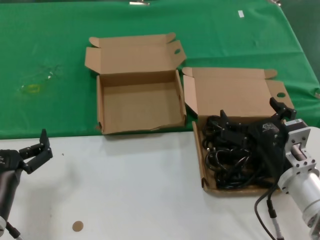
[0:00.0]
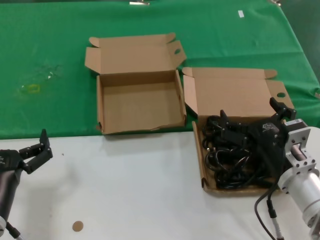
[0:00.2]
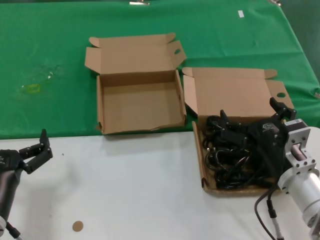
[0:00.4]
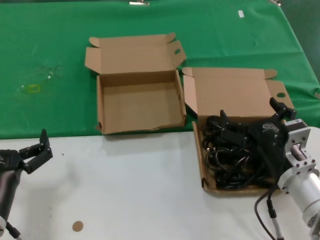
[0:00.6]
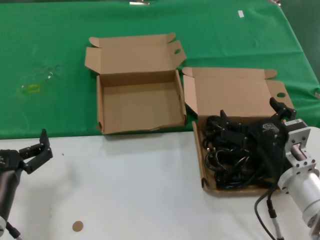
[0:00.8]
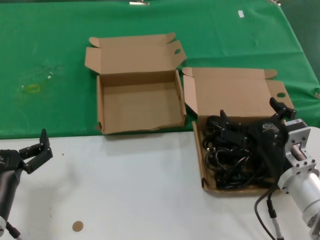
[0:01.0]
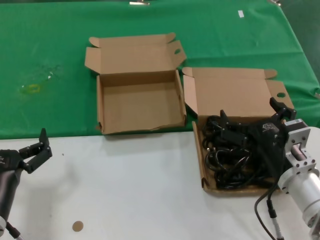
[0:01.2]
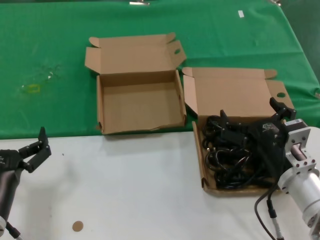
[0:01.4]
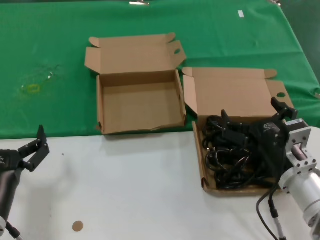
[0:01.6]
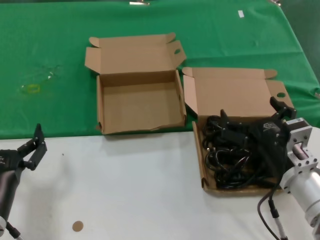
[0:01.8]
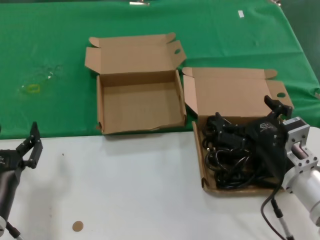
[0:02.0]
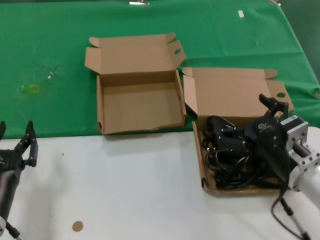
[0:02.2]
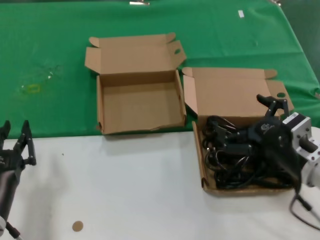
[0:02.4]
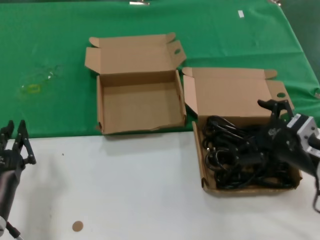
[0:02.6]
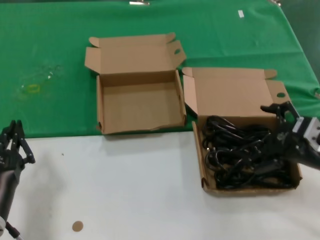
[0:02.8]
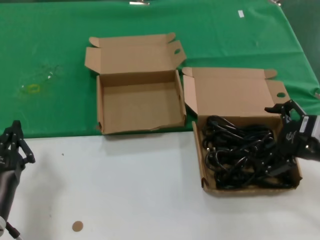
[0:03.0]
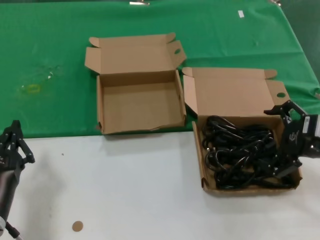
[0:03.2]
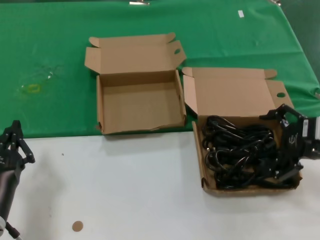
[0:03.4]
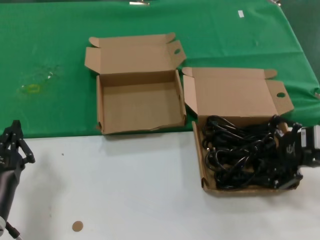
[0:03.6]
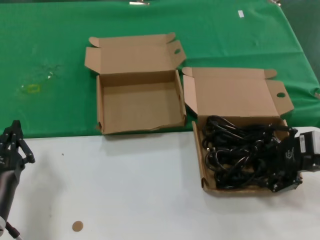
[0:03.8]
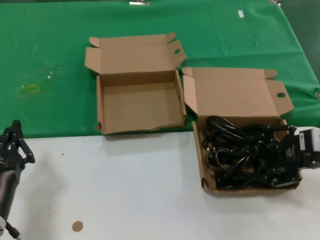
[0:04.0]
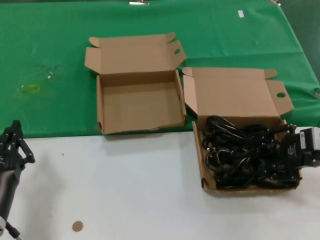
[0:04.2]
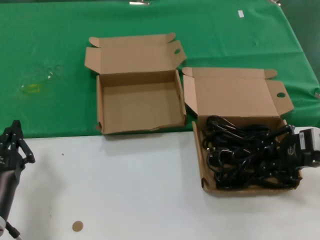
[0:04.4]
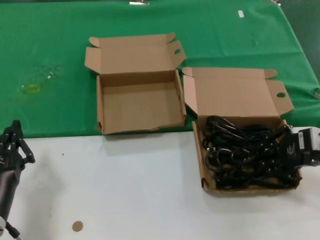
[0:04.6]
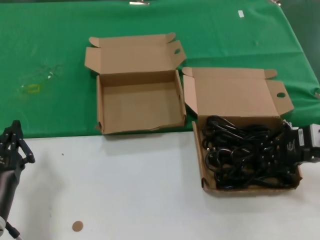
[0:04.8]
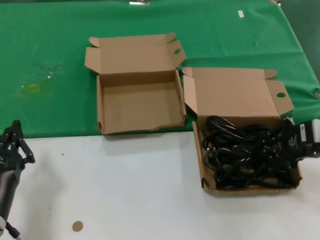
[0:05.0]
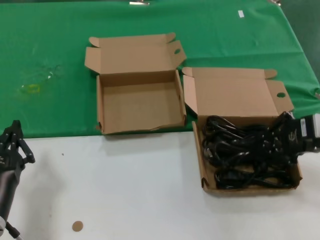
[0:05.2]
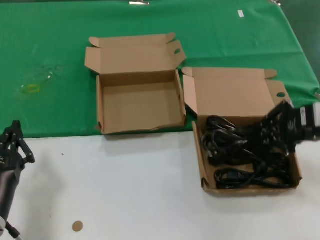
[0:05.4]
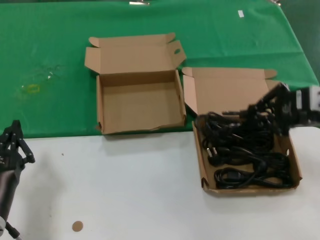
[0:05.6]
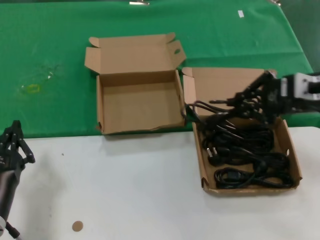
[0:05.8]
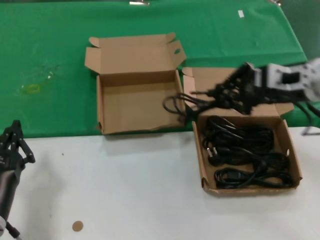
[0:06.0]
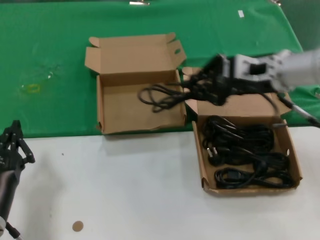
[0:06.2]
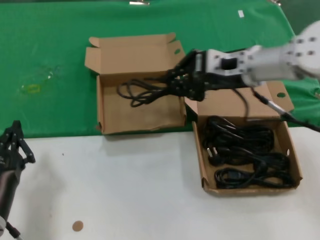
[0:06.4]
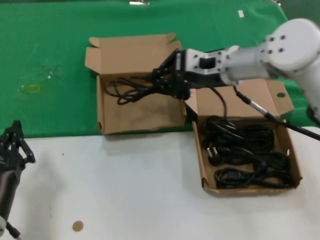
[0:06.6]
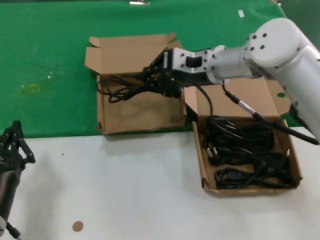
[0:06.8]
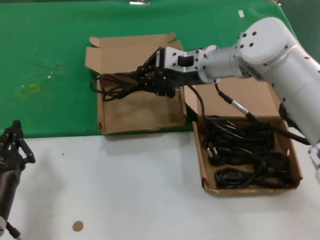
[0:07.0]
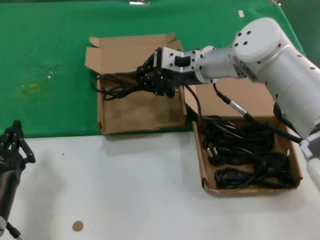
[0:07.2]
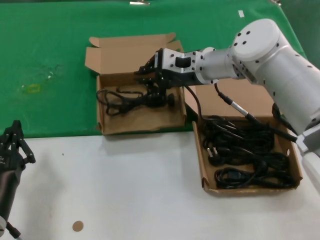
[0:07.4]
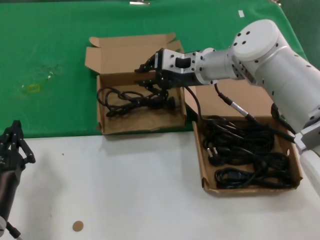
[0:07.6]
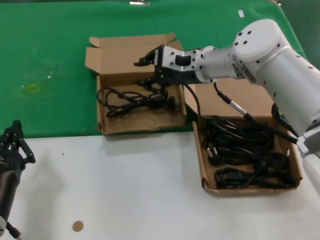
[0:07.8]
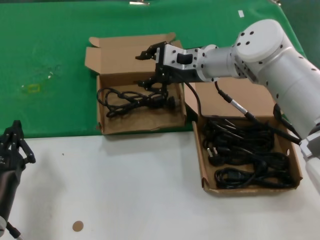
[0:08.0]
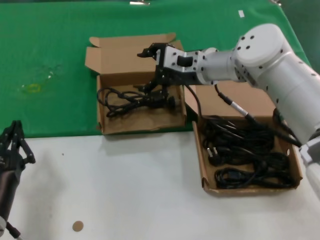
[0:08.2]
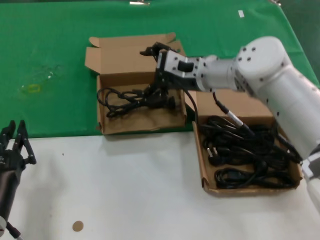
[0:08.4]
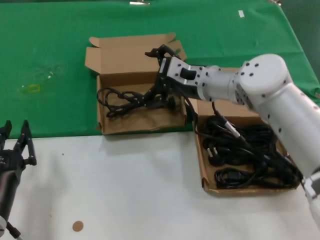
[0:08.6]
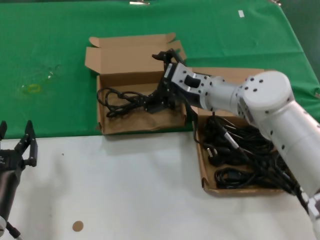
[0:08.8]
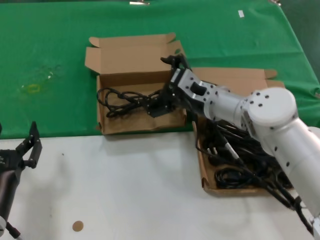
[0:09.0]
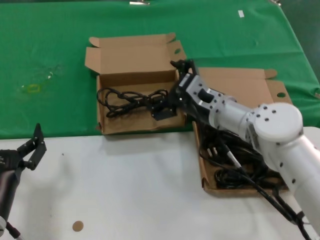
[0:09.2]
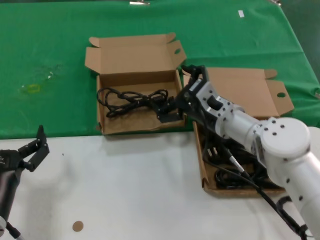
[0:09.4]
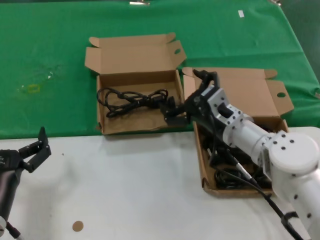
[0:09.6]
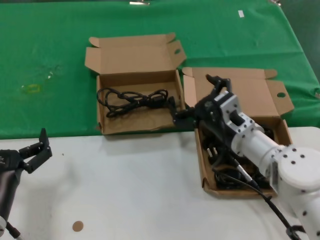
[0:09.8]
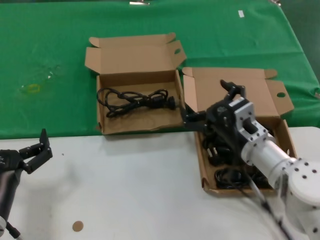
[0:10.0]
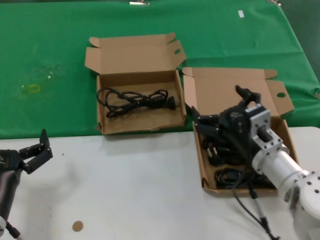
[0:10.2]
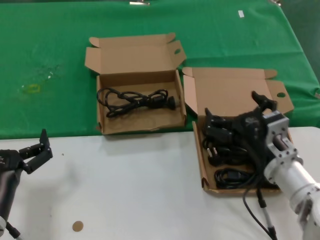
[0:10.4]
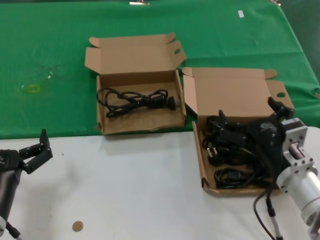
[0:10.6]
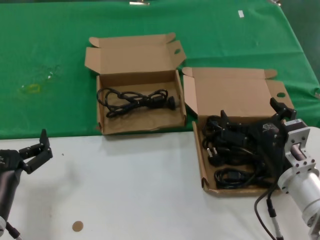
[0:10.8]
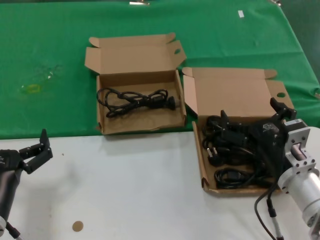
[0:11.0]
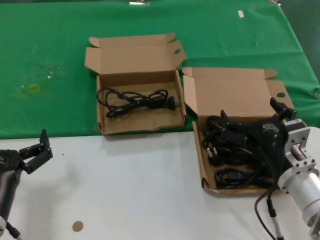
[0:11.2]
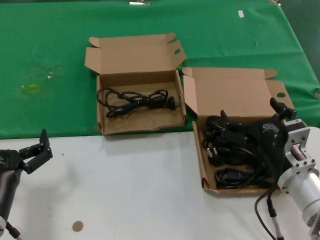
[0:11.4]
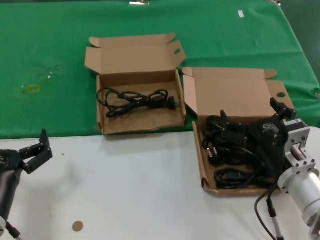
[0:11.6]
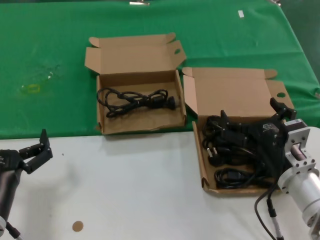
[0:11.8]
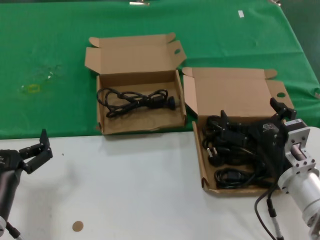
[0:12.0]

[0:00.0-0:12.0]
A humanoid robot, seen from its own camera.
Task of the whole recording: take the parts from the box containing them and put them into an empty box.
Step, 0:00.0 to 0:04.8: Grasp the data cable.
Step, 0:05.0 to 0:07.4: Place the data cable in the another box.
0:00.0 to 0:01.6: Both hands stay put.
0:01.6 to 0:03.0: The right hand is displaced to the right and upward by roughly 15 cm.
0:04.4 to 0:06.0: The right hand goes some 15 cm upward, to the left and forward.
0:06.0 to 0:07.6: The right hand is displaced to the left and forward by some 20 cm.
0:07.6 to 0:09.0: The right hand shifts about 10 cm downward and backward.
0:09.0 to 0:10.4: The right hand moves backward, downward and to the right, roughly 20 cm.
0:10.4 to 0:12.0: The hands move only a little.

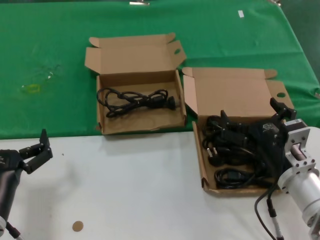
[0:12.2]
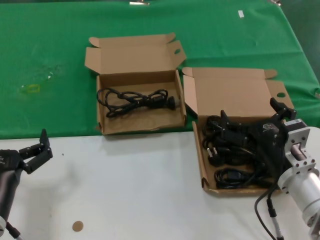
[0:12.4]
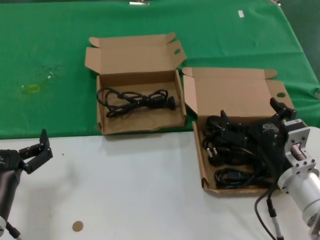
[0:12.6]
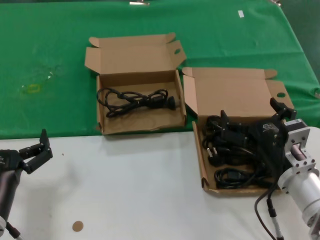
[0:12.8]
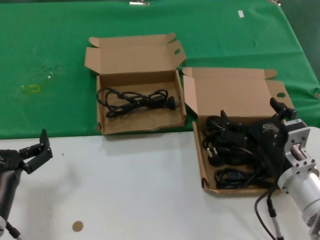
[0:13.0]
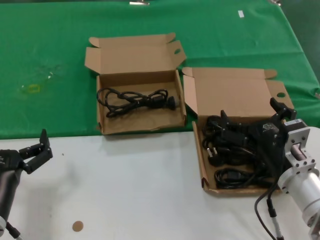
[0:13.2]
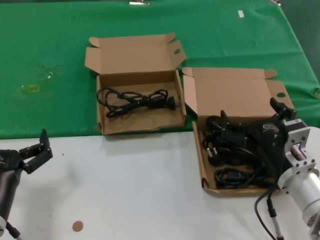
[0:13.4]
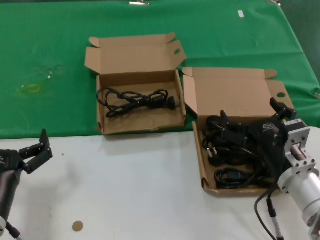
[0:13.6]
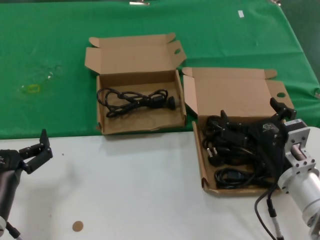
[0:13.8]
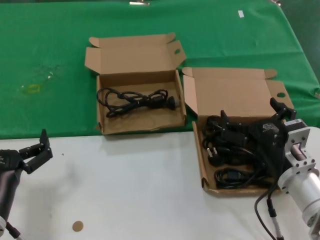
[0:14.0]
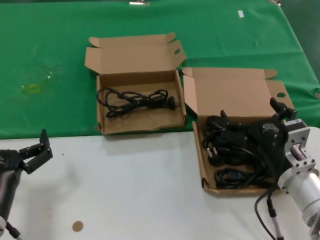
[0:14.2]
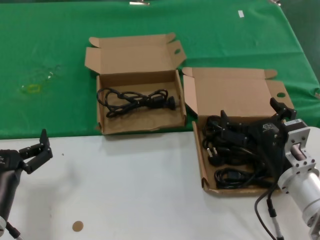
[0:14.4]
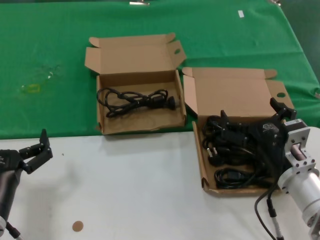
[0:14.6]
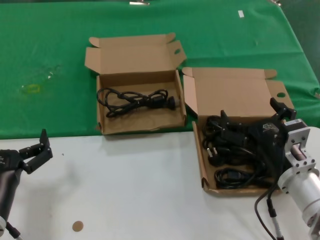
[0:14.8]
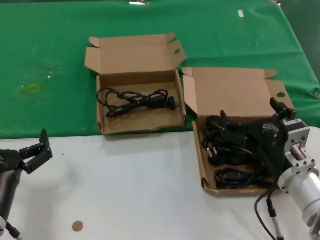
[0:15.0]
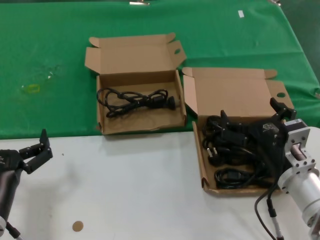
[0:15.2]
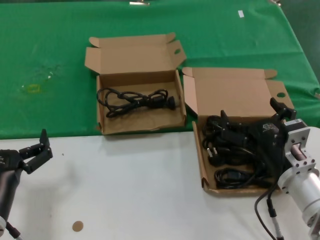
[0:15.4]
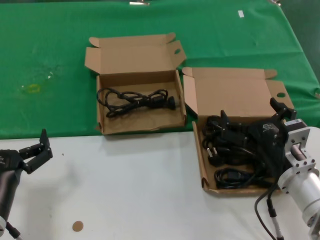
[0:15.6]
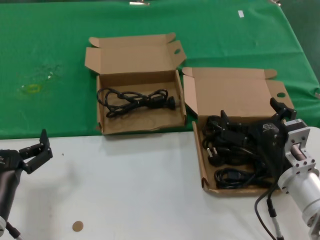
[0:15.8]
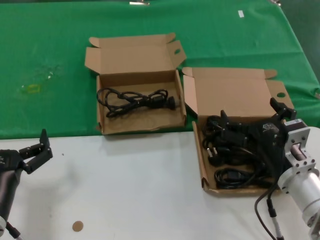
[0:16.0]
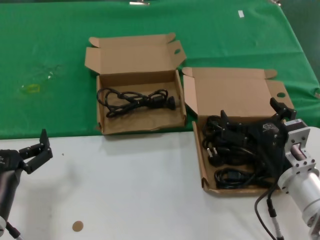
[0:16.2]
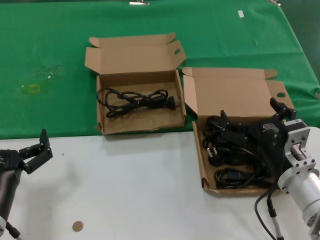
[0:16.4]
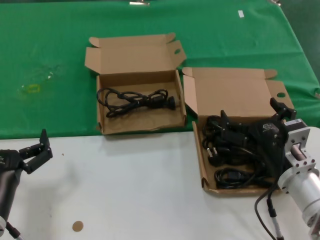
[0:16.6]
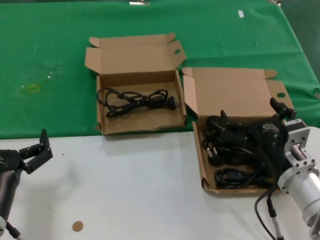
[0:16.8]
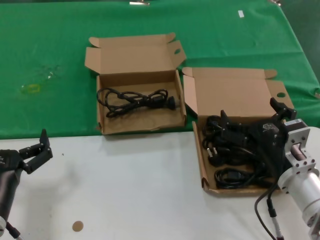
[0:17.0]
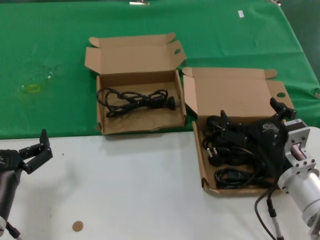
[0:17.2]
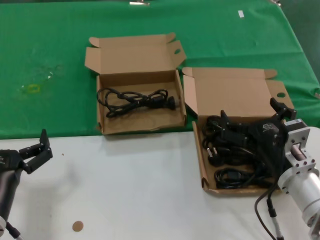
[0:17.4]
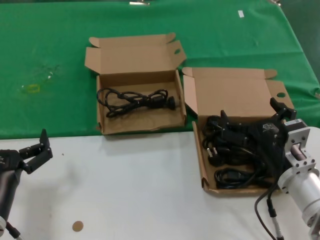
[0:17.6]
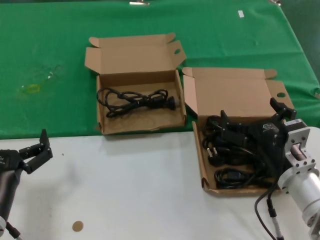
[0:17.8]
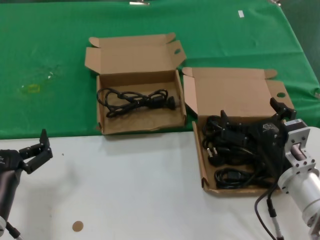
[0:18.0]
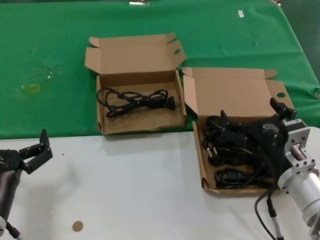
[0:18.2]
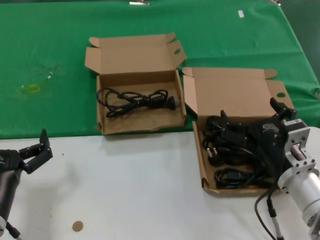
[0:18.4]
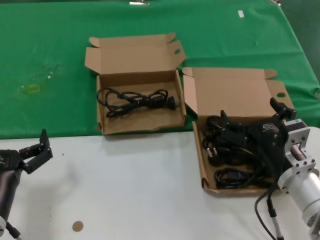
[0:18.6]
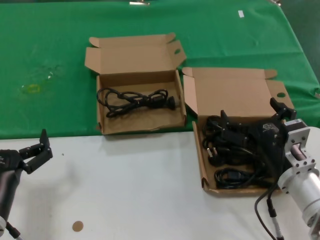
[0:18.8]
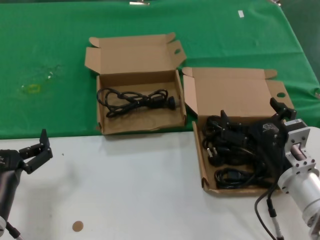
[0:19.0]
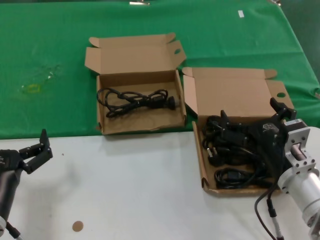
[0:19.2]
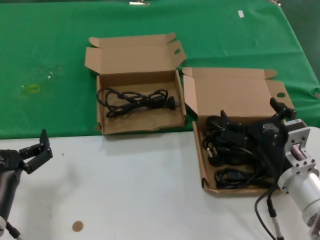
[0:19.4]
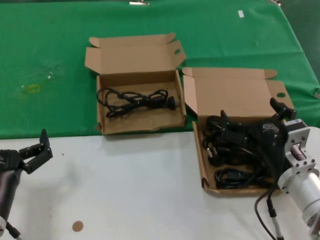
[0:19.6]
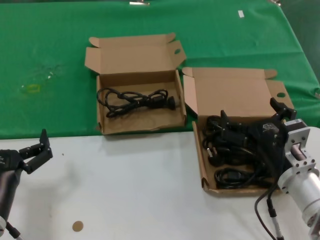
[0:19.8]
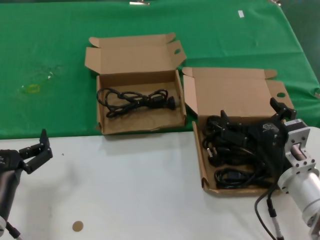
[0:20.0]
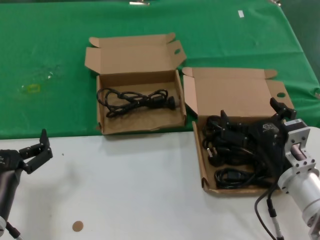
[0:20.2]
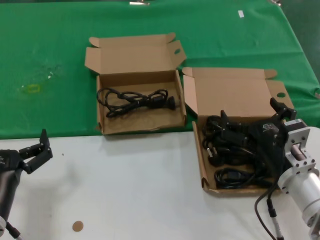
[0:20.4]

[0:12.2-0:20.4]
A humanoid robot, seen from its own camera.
Task of the whole recording: take the parts from the box containing them and put them into an empty box.
0:12.2 to 0:20.4: Both hands stay about where they are.

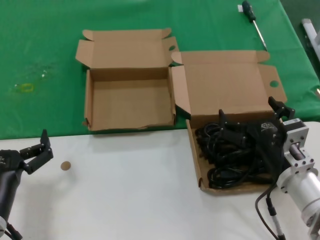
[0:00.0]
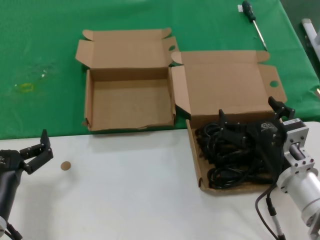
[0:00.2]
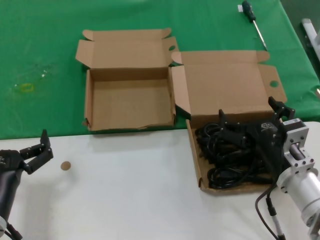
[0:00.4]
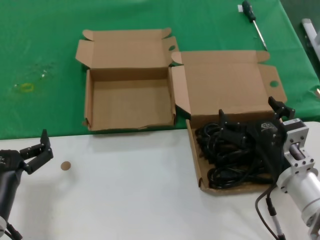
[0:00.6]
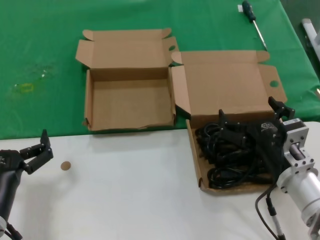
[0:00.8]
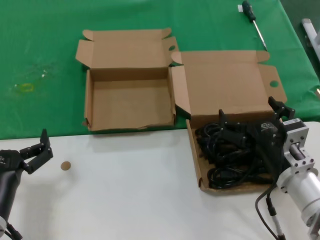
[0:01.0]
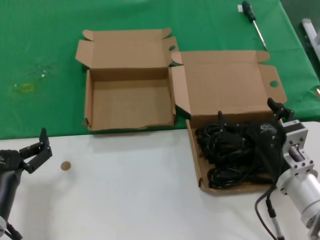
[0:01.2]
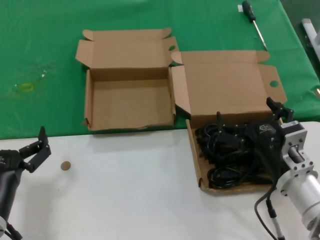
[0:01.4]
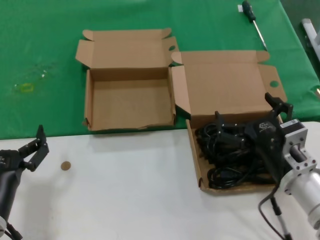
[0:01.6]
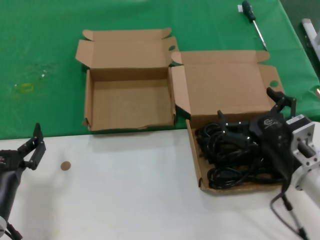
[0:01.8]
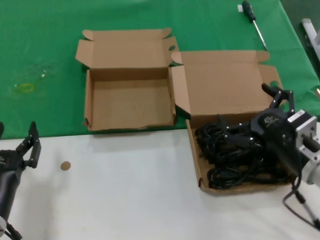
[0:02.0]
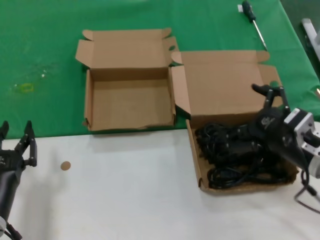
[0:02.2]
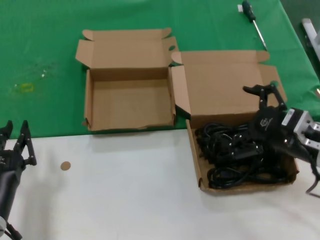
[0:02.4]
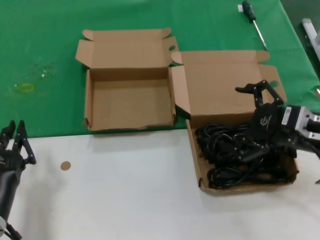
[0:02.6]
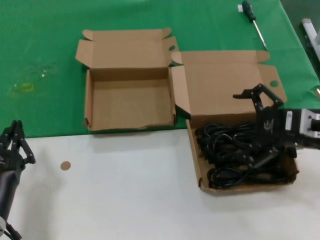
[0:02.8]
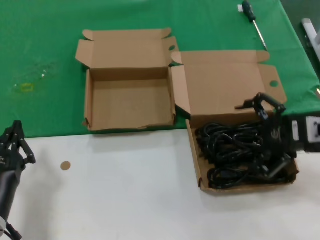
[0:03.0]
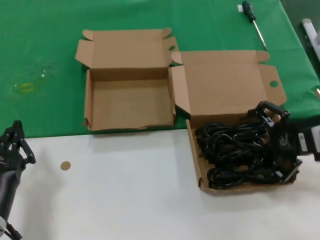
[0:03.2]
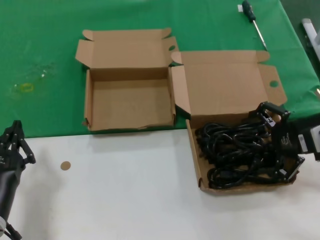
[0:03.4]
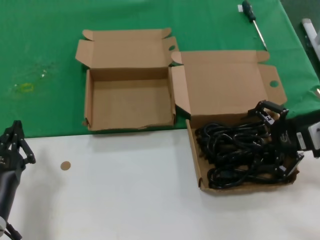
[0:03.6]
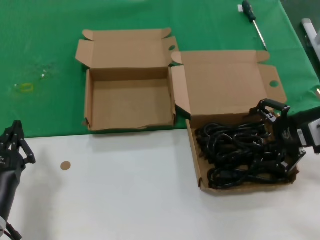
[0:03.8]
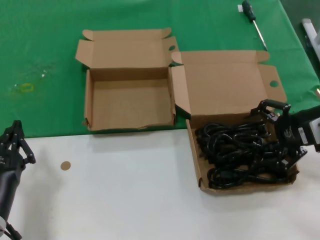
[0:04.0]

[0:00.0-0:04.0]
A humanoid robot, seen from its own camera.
Task of the whole recording: take the parts from the box containing them and put them into an empty box.
0:00.0 to 0:01.4: Neither hand changes place.
0:01.4 to 0:02.6: The right hand is displaced upward and to the right by roughly 15 cm.
0:02.6 to 0:04.0: The right hand is displaced forward and to the right by roughly 10 cm.
